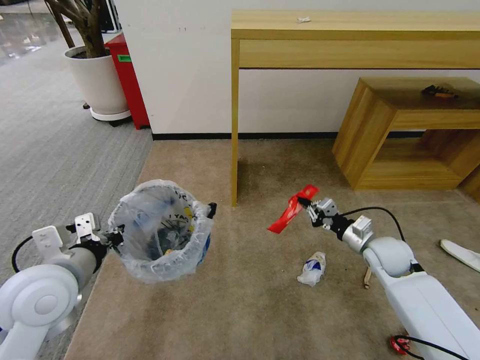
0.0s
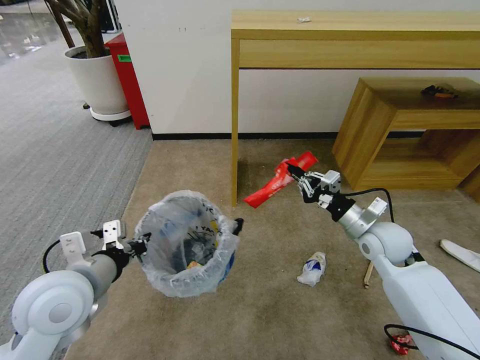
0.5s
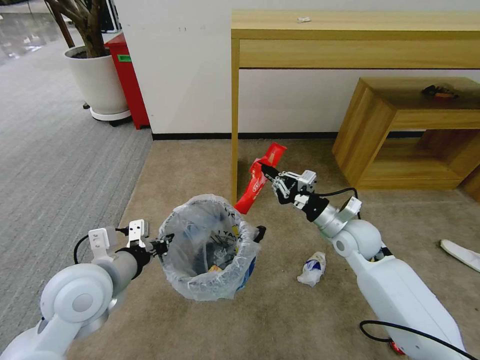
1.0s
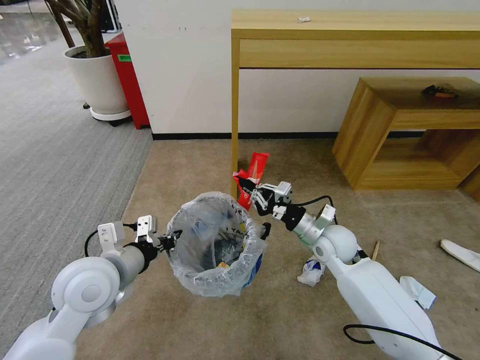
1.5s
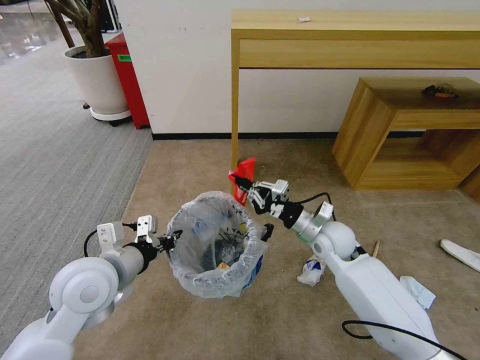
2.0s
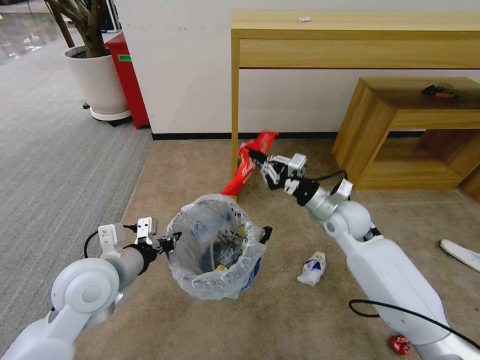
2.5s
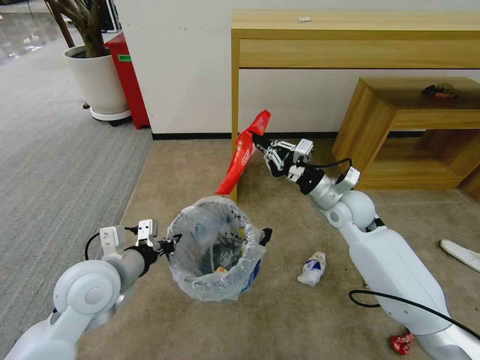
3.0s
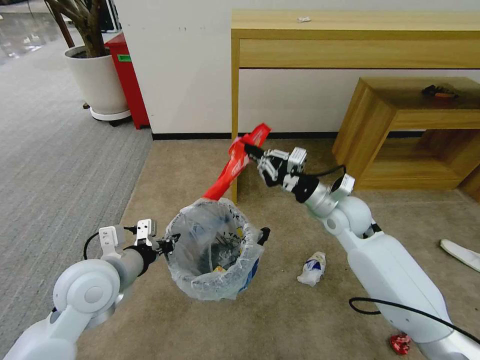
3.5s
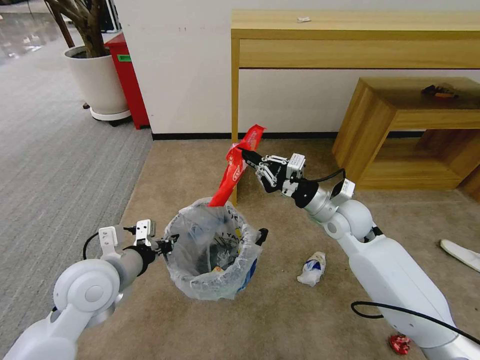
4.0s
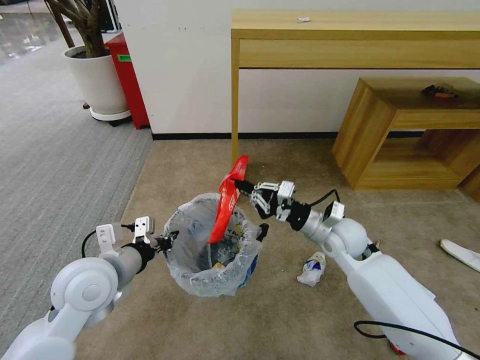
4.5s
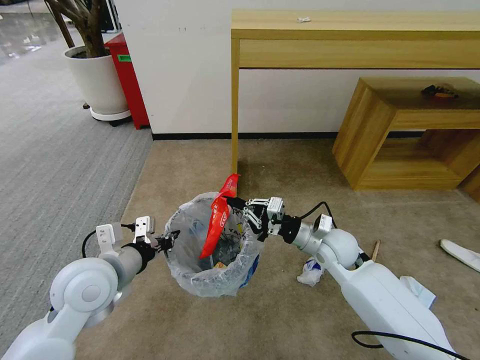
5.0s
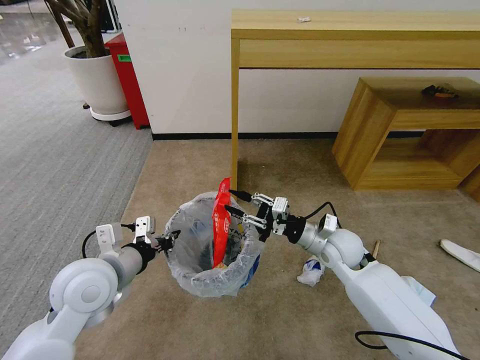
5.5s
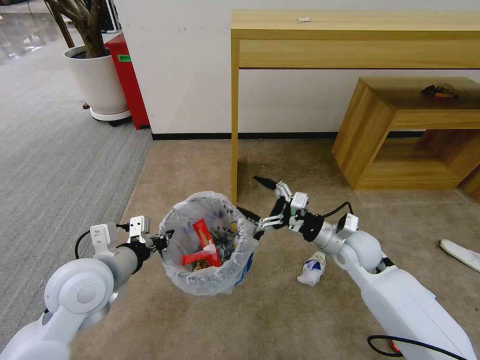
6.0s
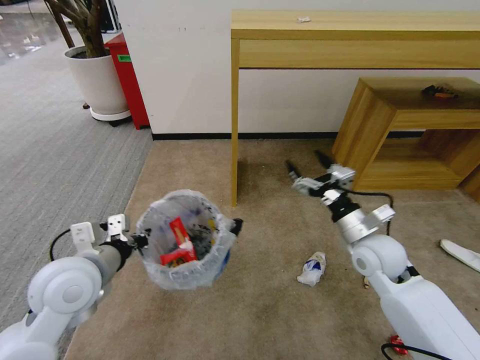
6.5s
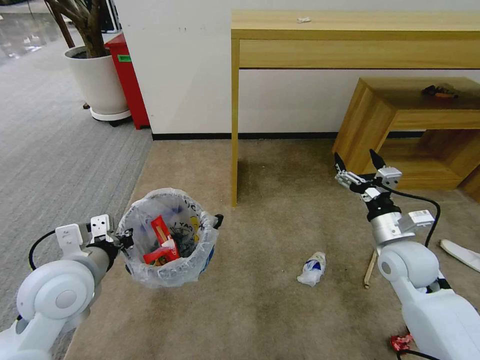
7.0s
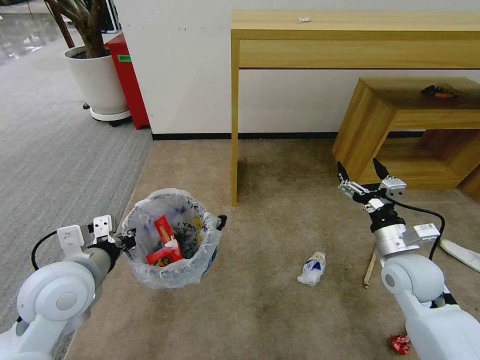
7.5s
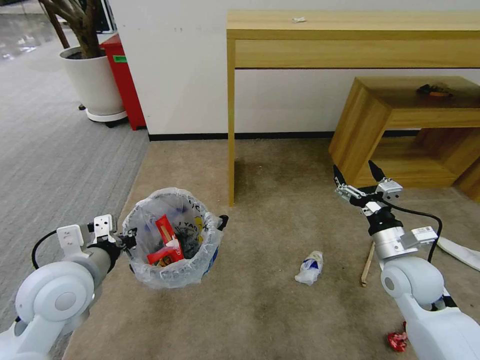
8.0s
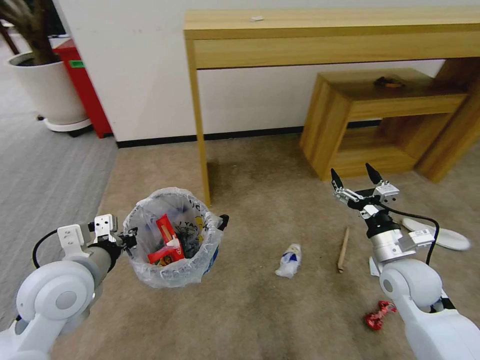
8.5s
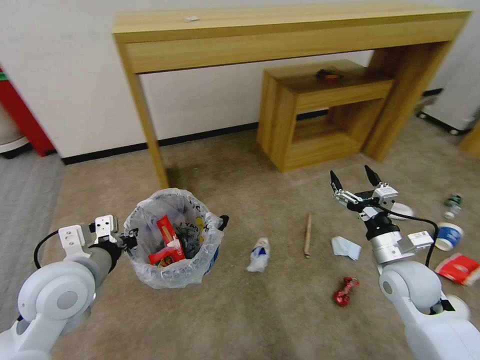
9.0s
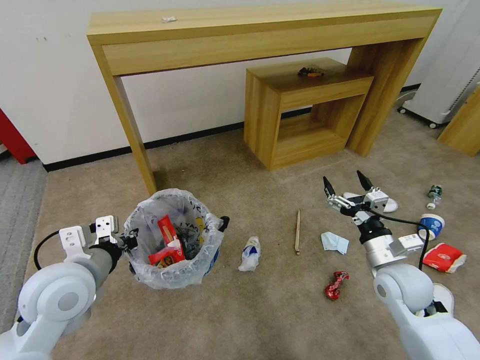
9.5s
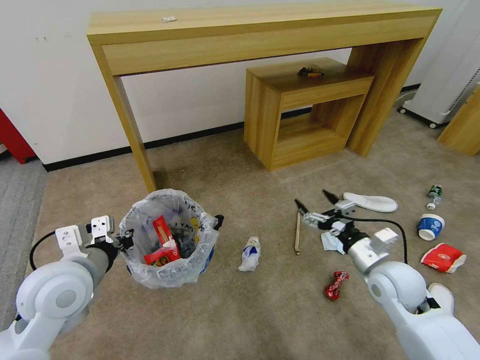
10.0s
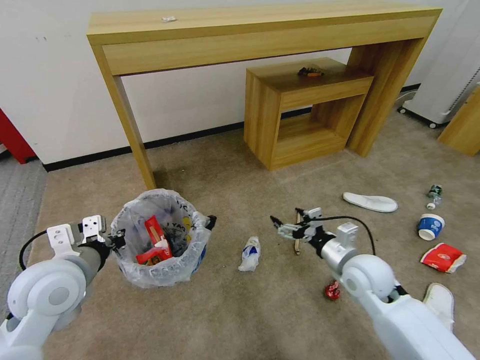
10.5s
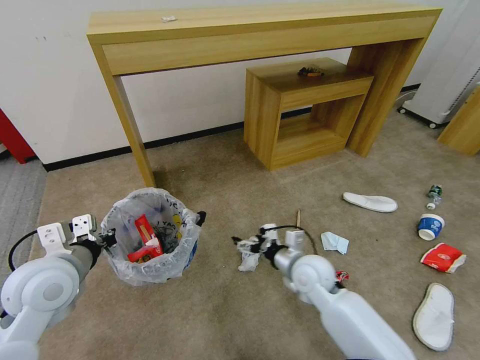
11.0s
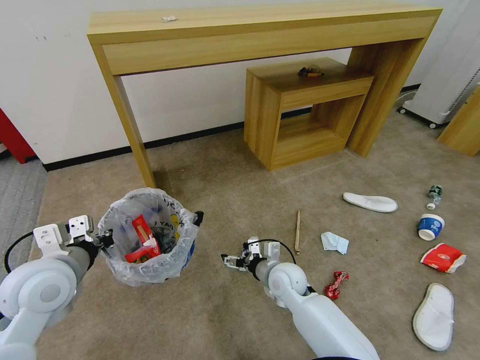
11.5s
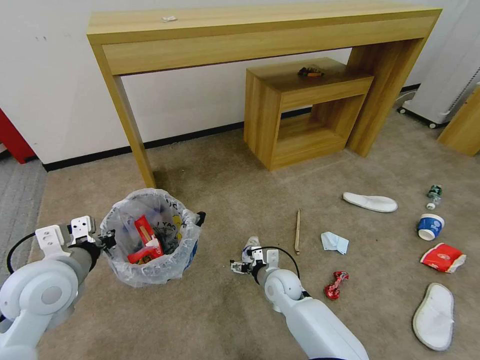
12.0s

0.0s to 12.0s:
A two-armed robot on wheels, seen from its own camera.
Task of the whole recording: Pick up the trash bin and place the garbage on the floor into it.
0.0s to 2.0s: The right gripper shifts some 15 cm to the left. The left gripper shifts by some 5 cm.
2.0s to 4.0s: The right gripper heads upward, covering some 5 cm.
4.0s to 6.0s: The right gripper goes roughly 5 cm downward, and opens up.
6.0s to 8.0s: The right gripper is displaced to the right and backward by about 10 cm.
10.0s to 12.0s: The right gripper is displaced to the left and downward by roughly 25 cm.

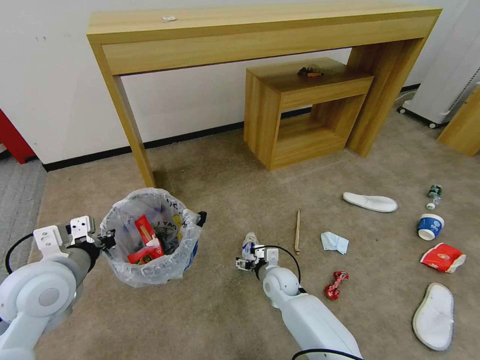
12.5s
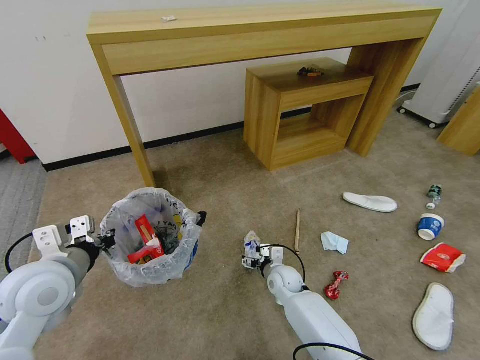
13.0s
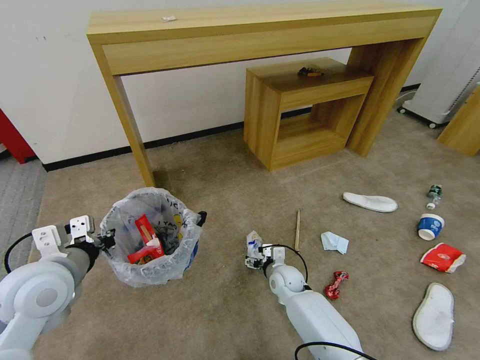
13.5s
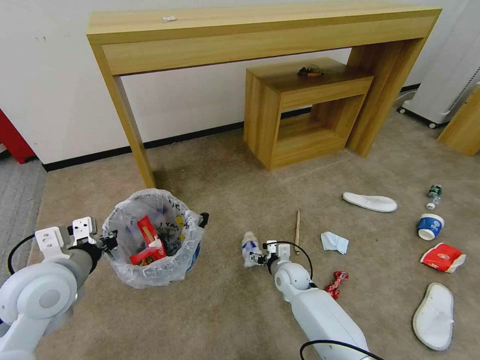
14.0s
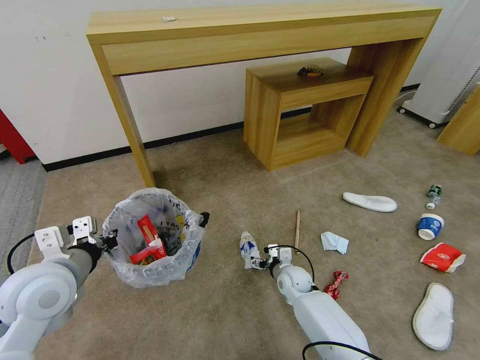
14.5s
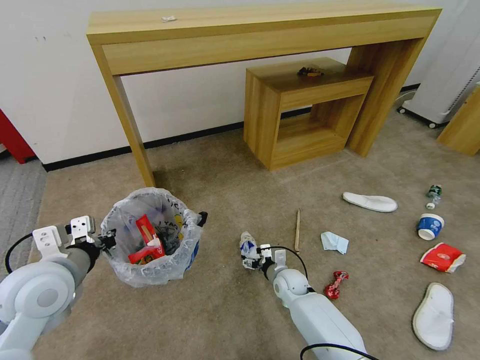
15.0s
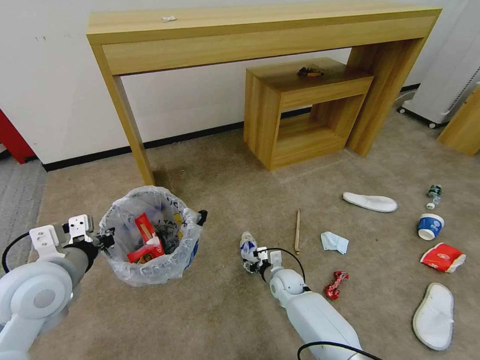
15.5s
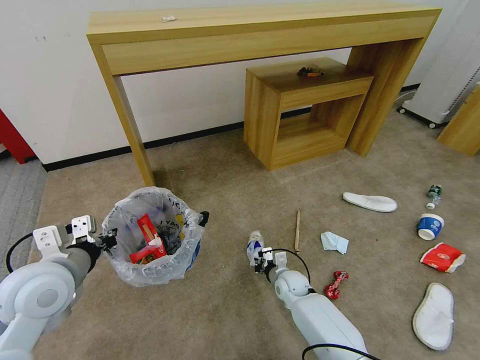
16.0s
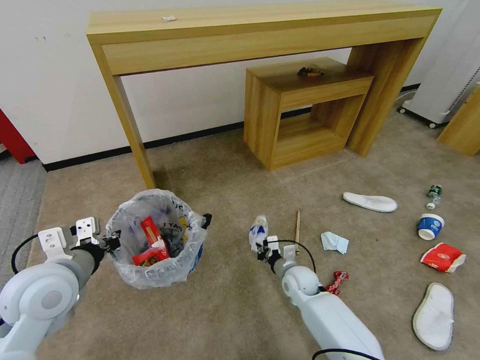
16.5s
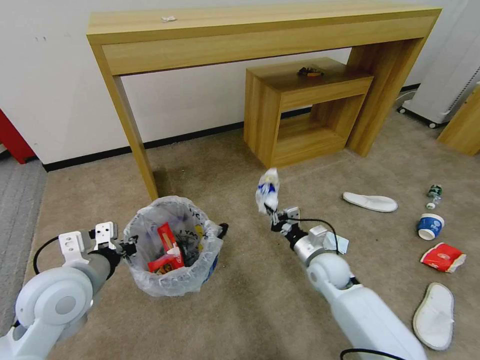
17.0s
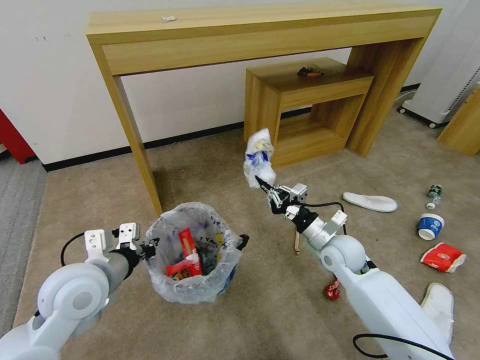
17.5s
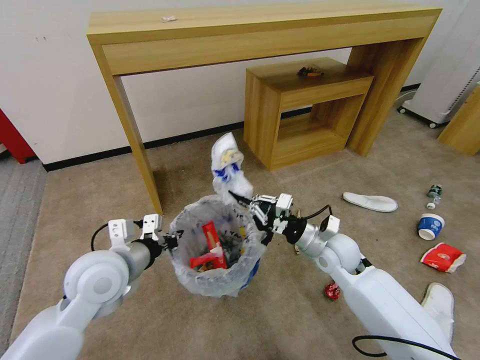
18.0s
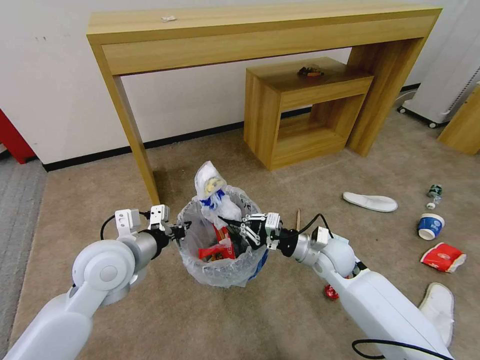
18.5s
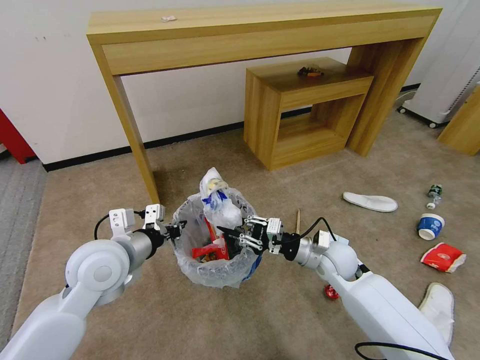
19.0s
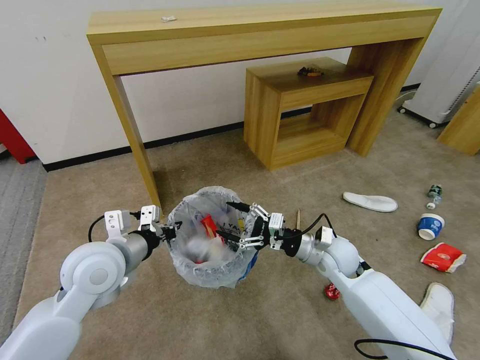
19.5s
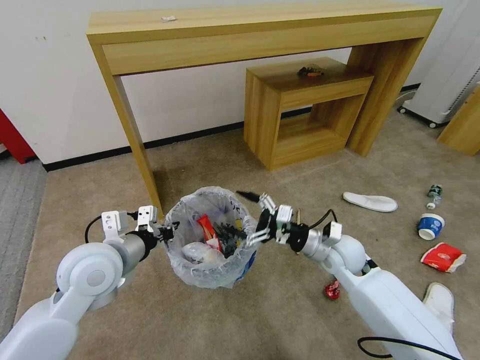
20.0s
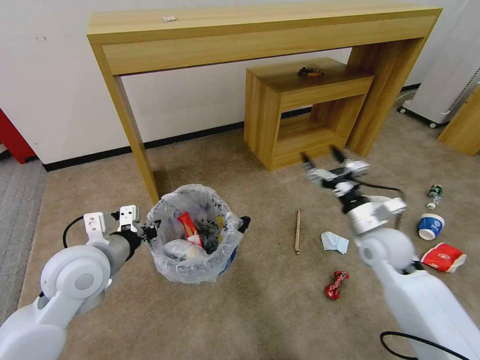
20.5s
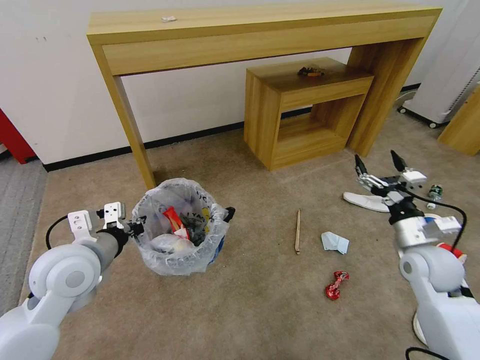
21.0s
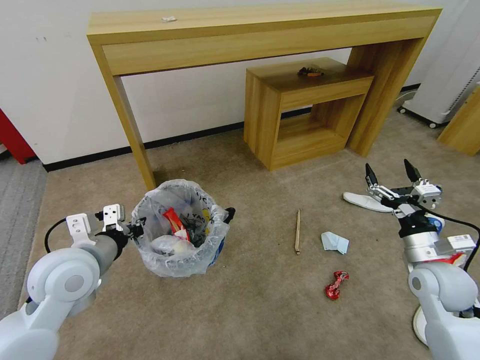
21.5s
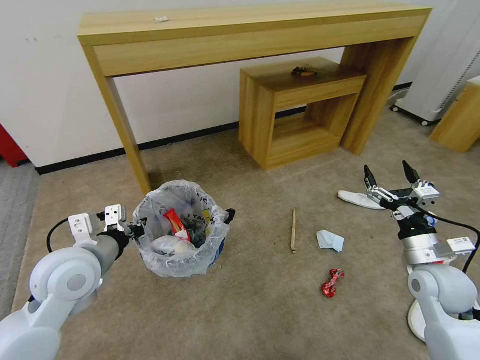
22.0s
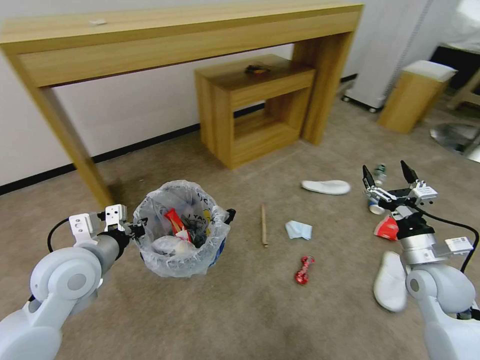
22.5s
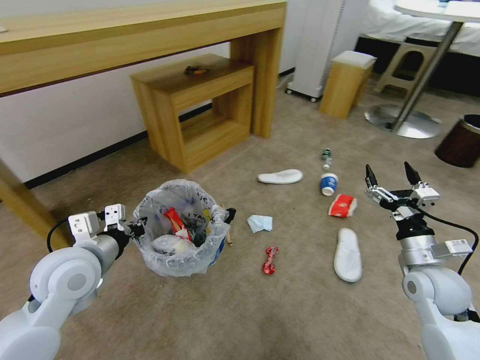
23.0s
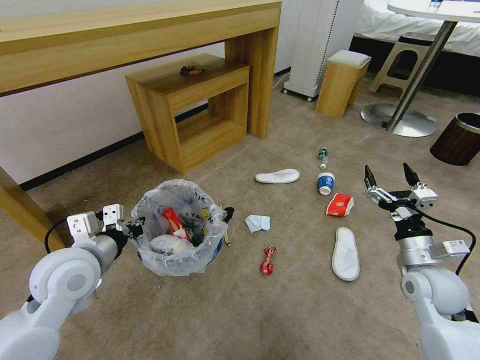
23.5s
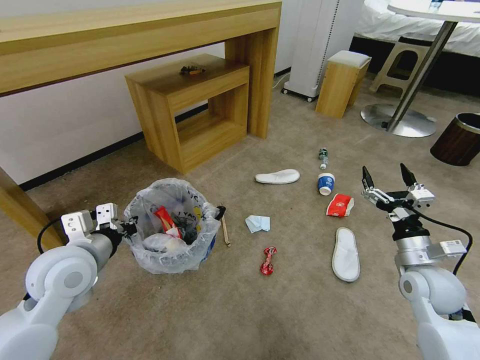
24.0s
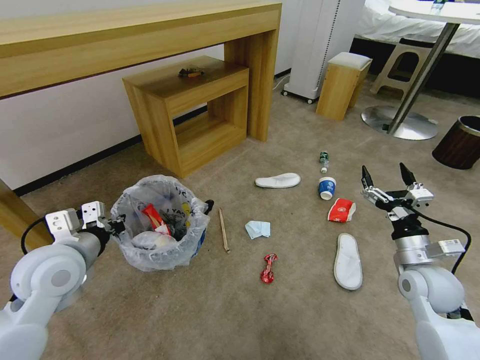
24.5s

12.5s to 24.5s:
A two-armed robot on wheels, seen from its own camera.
Task of the whole recording: Pick up the trash bin and place the garbage on the floor into it.
12.5s to 14.5s: The right gripper ends up roughly 5 cm from where it was.
14.5s to 16.5s: The right gripper closes.
16.5s to 18.5s: The left gripper is displaced to the right by approximately 10 cm. Meanwhile the right gripper is displaced upward by approximately 15 cm.
18.5s to 20.5s: The right gripper travels to the right and upward by some 10 cm, and opens up.
20.5s to 22.5s: The right gripper heads to the right and backward, covering about 10 cm.

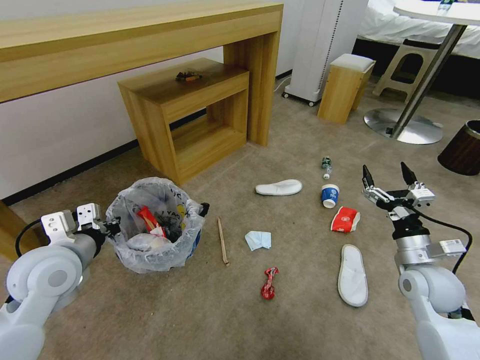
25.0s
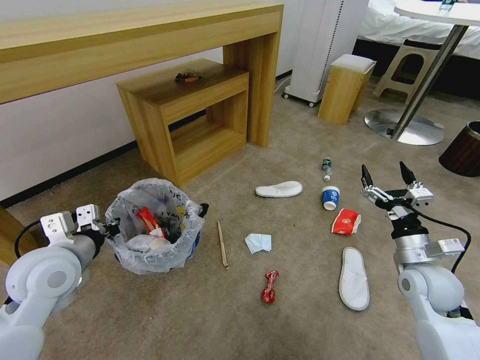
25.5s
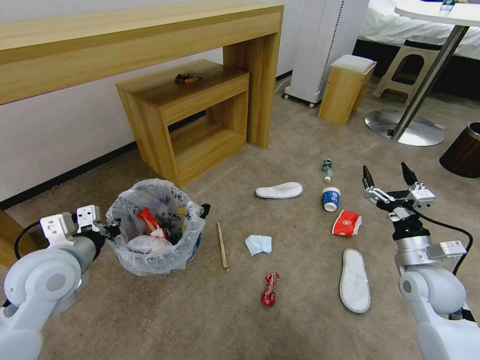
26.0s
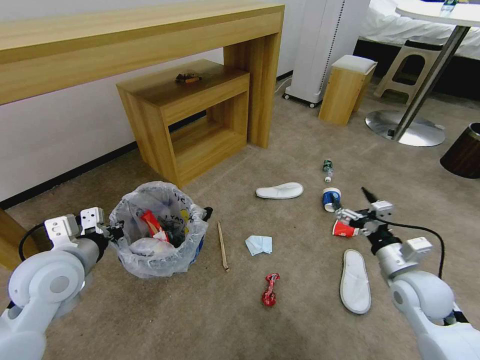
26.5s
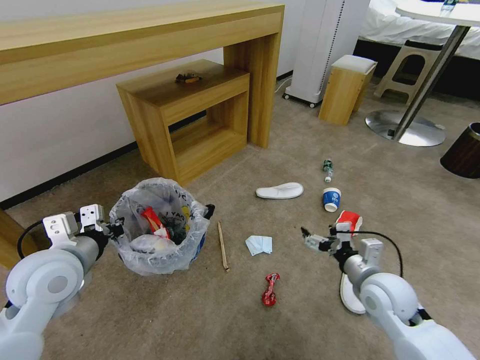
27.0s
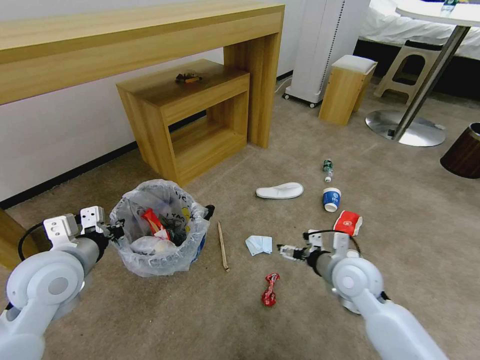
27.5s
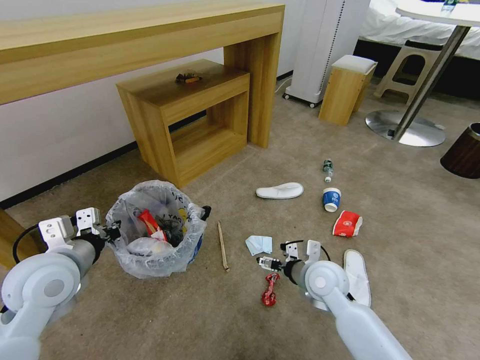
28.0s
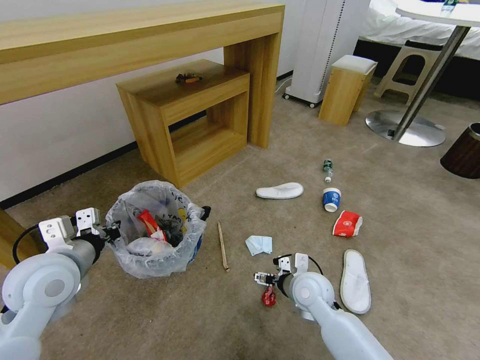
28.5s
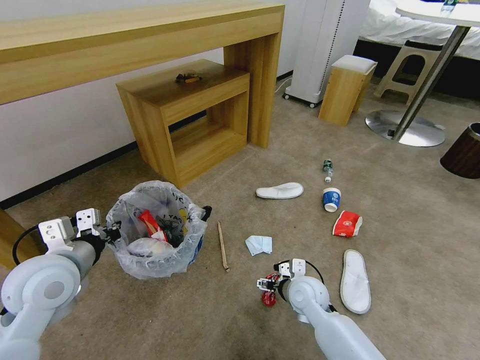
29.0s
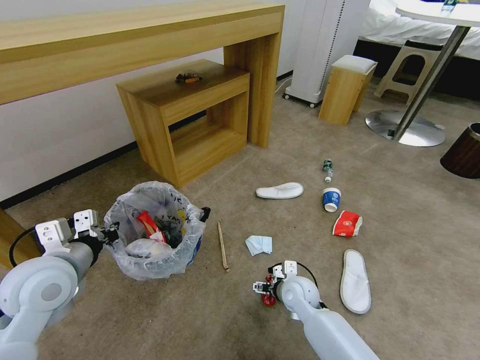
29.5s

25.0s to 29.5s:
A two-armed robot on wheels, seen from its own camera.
Task of the whole recording: Pick up the trash bin and place the garbage on the floor into it.
25.0s to 27.0s: The right gripper moves to the left, about 10 cm.
27.0s to 29.5s: The right gripper heads to the left and downward, covering roughly 20 cm.
